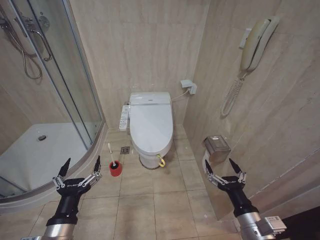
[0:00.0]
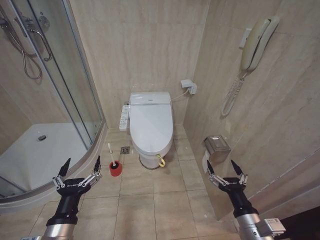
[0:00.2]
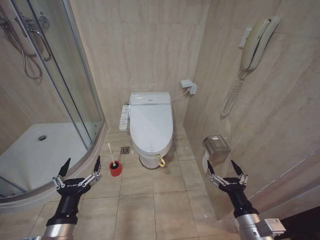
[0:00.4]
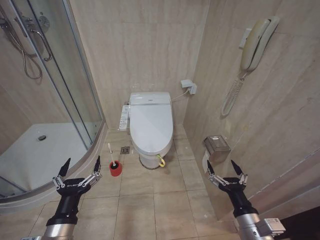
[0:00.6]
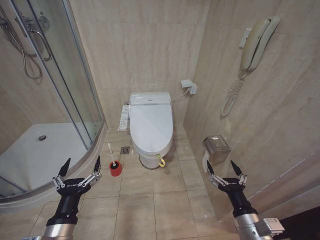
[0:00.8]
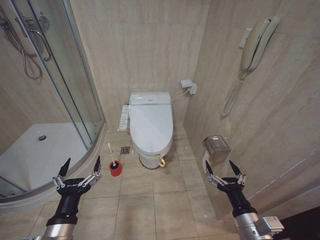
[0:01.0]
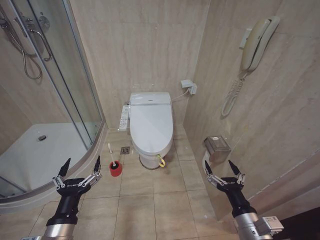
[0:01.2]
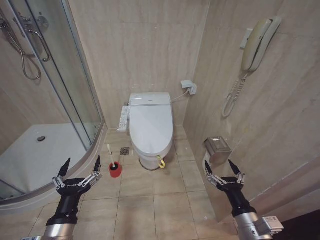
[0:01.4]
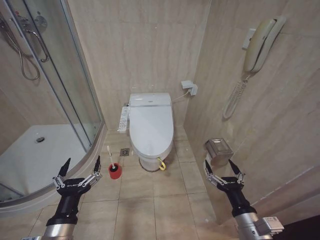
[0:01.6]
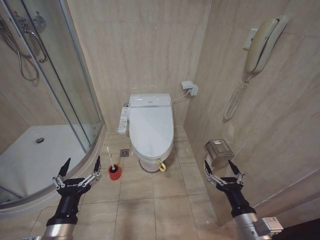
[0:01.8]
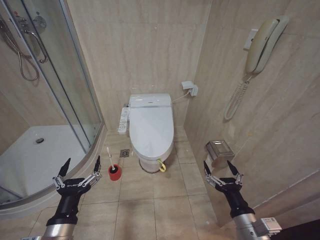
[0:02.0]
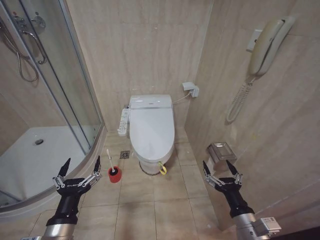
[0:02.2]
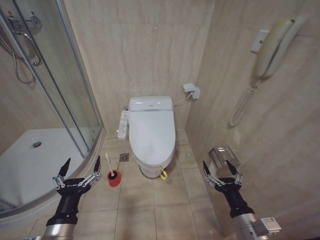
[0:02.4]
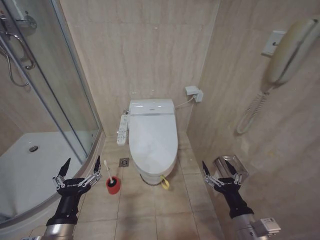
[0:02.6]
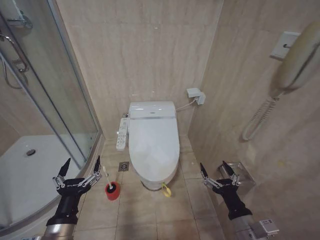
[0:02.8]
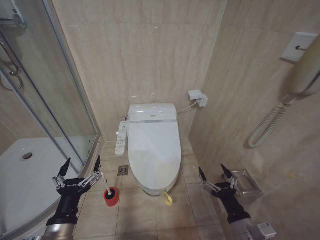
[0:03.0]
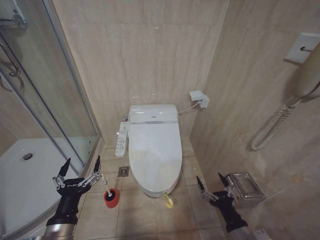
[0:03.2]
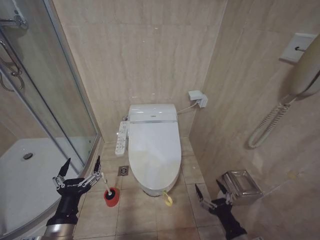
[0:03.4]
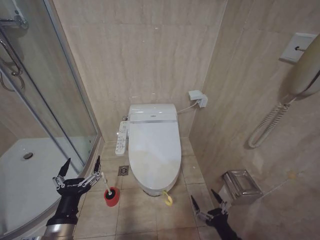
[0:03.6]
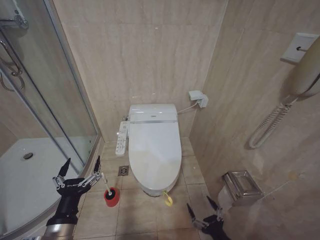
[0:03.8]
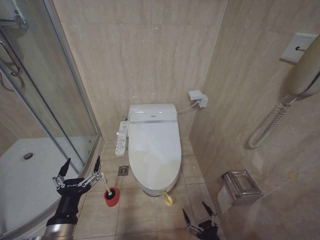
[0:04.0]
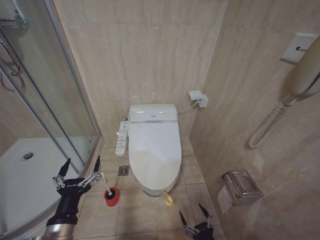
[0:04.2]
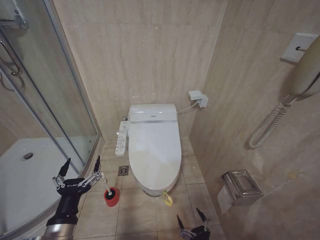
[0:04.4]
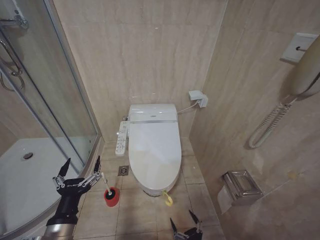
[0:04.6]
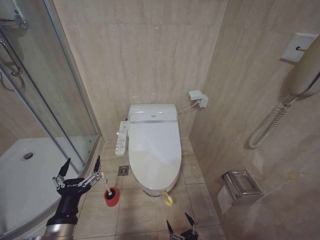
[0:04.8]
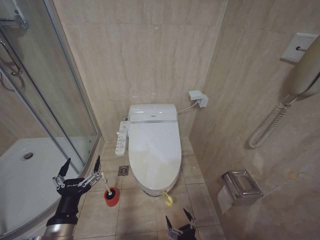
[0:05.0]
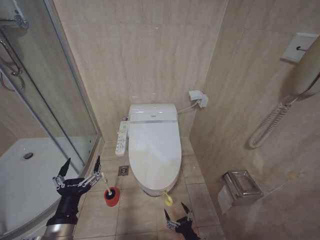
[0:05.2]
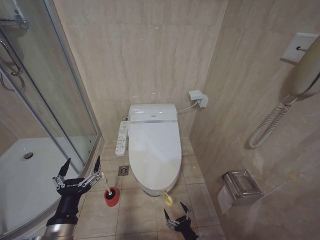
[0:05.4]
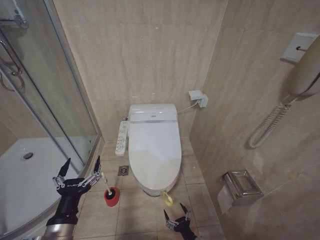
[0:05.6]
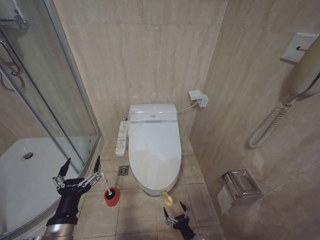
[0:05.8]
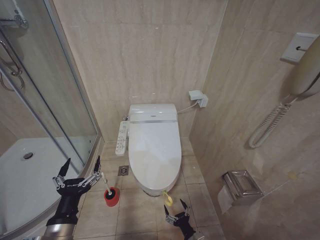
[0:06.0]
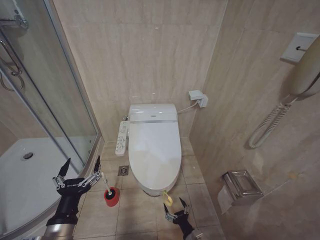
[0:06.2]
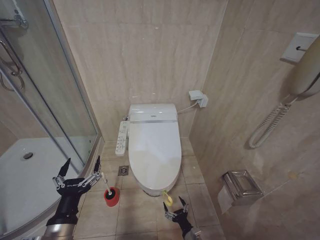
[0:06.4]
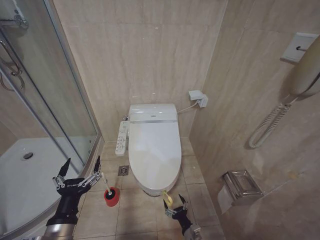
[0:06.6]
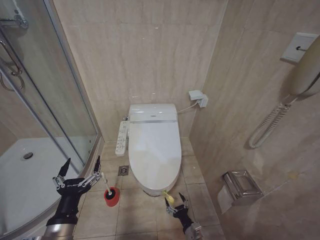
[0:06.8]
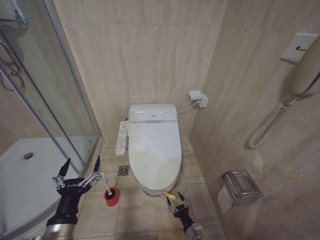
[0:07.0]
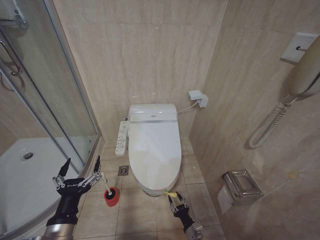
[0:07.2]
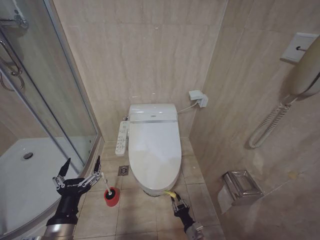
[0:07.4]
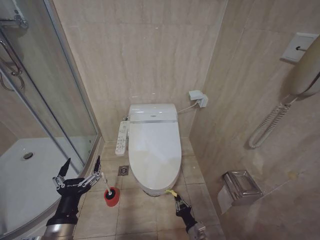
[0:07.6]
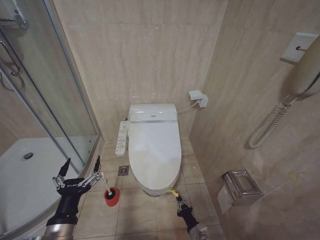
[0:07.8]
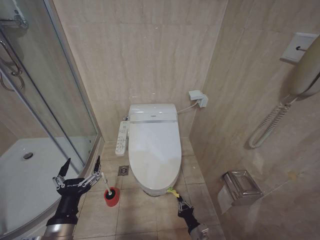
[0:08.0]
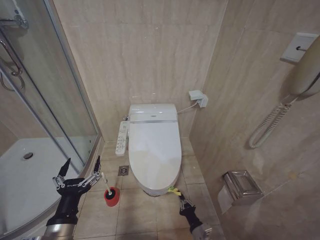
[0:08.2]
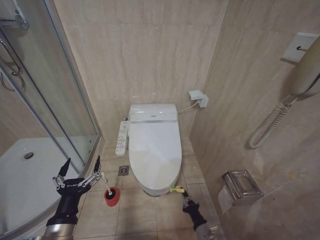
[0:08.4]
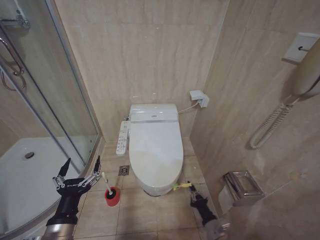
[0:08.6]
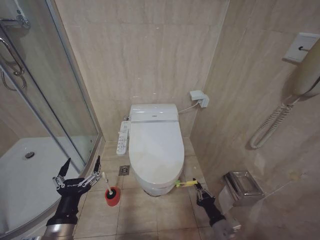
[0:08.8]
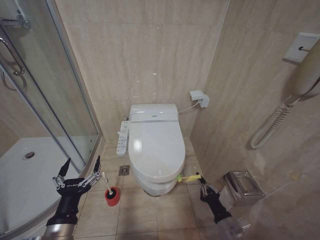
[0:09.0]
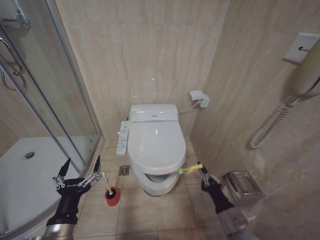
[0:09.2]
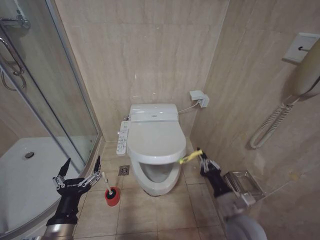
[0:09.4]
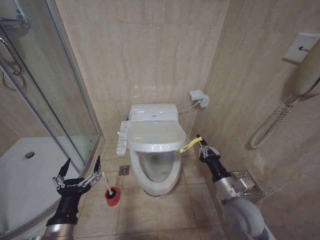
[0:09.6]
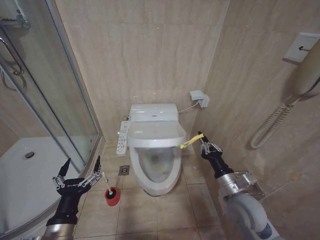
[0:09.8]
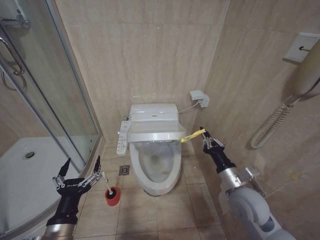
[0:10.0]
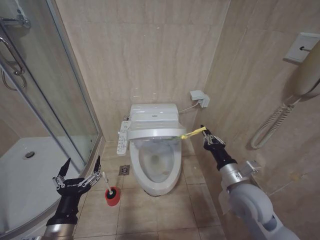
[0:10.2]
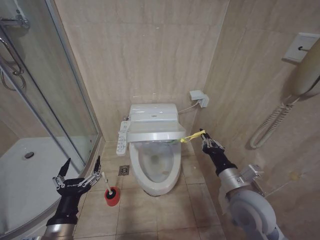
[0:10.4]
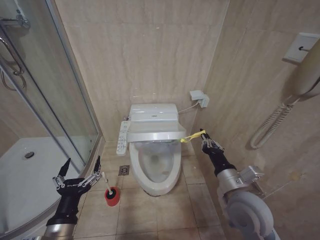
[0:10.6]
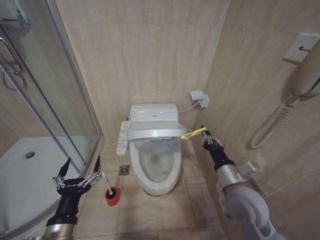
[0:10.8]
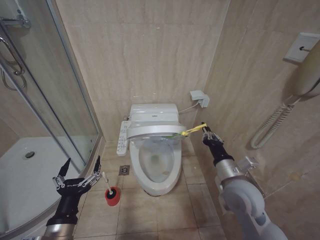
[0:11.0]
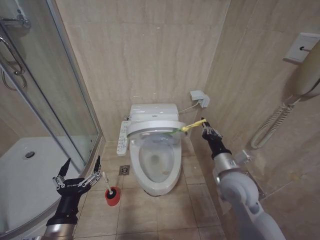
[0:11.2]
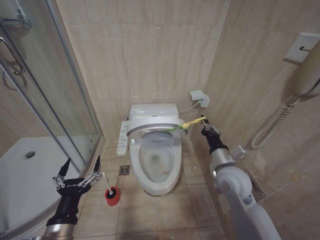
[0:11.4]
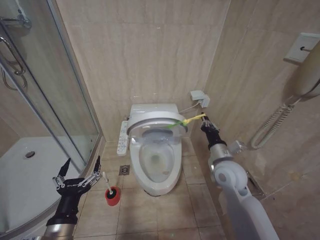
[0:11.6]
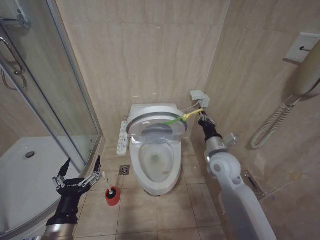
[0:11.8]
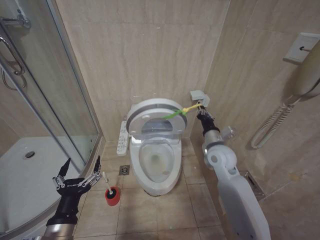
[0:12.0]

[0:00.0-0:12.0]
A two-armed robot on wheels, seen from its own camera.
Task of the whole recording: Open the toilet lid, clean the toilet bowl with a toilet brush, close the toilet lid, and flush.
0:03.0 to 0:04.4: The right gripper goes approximately 15 cm downward and backward.
0:04.4 to 0:06.0: The right gripper heads downward and forward, covering roughly 15 cm.
0:06.0 to 0:07.6: The right gripper closes its fingers.
0:07.6 to 0:09.0: The right gripper travels upward and to the right by approximately 15 cm.
0:09.0 to 0:10.4: The right gripper heads upward, covering approximately 20 cm.
0:10.4 to 0:12.0: The right gripper heads forward, covering about 15 cm.

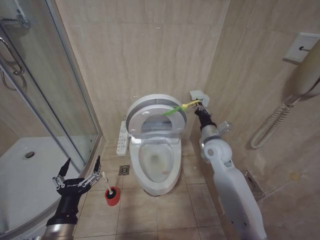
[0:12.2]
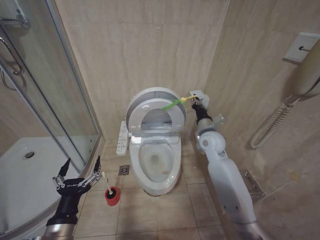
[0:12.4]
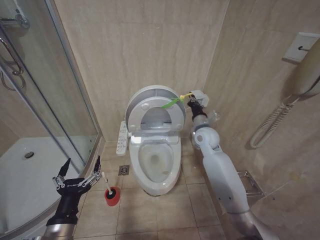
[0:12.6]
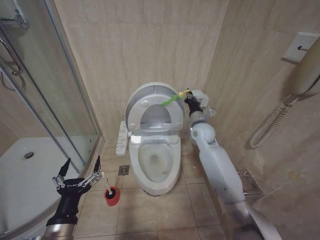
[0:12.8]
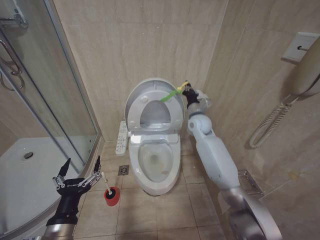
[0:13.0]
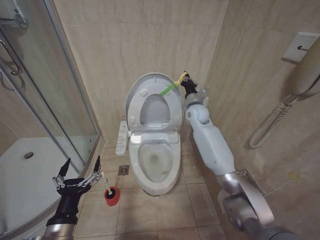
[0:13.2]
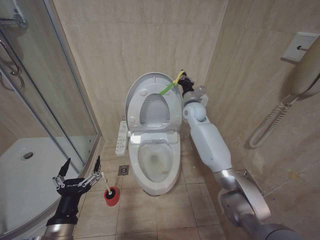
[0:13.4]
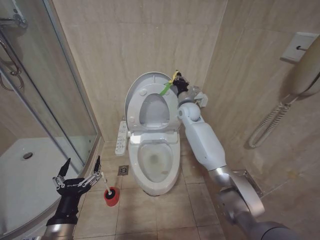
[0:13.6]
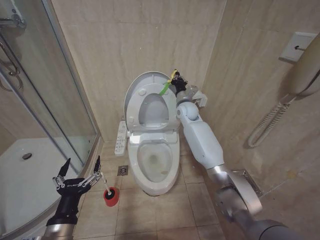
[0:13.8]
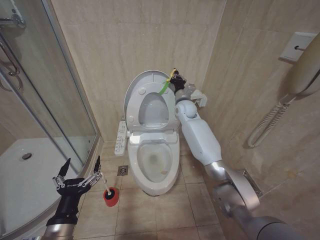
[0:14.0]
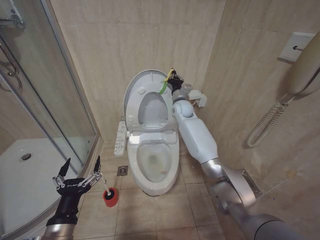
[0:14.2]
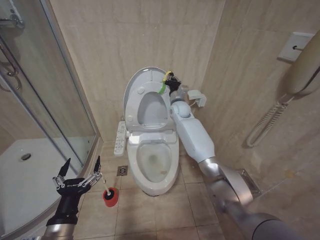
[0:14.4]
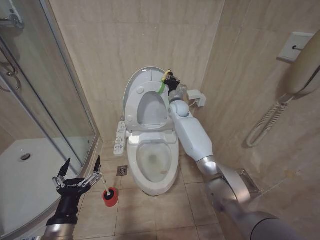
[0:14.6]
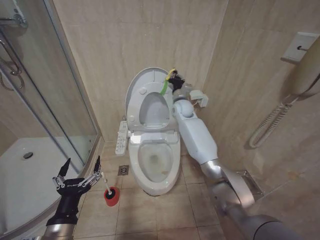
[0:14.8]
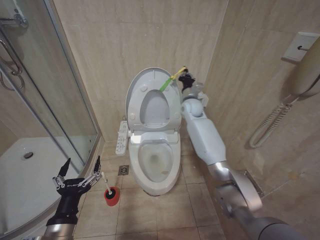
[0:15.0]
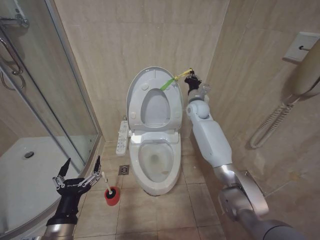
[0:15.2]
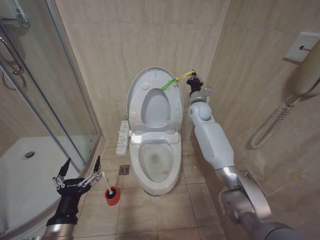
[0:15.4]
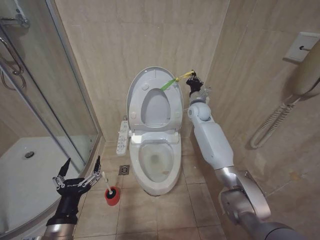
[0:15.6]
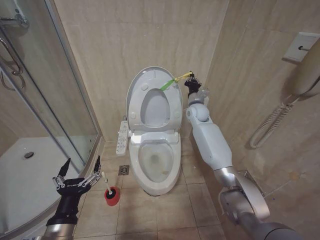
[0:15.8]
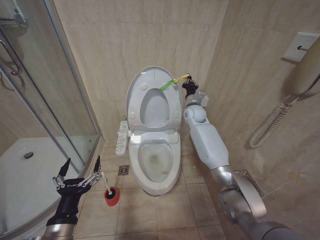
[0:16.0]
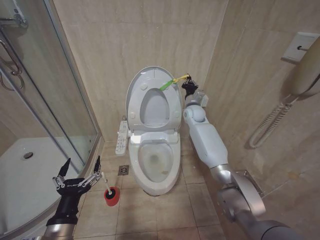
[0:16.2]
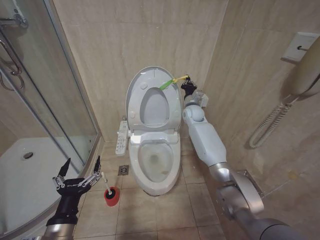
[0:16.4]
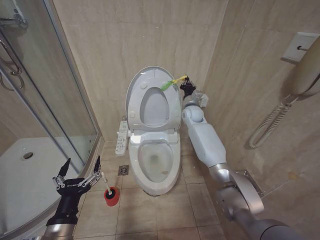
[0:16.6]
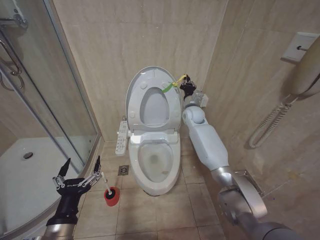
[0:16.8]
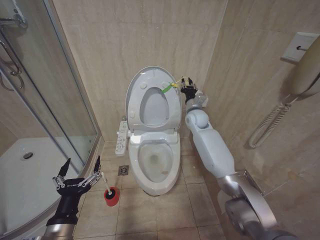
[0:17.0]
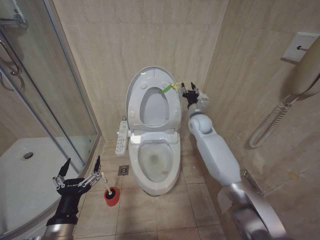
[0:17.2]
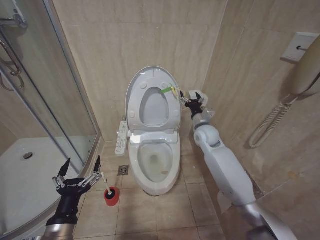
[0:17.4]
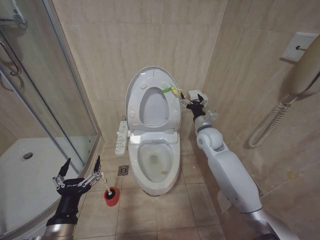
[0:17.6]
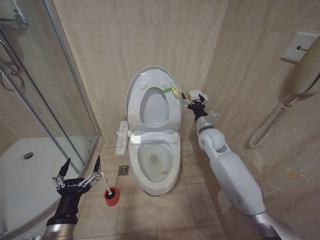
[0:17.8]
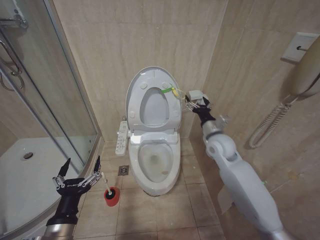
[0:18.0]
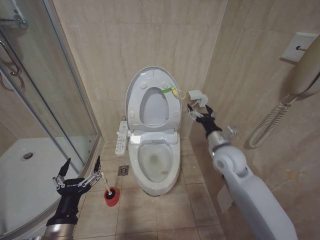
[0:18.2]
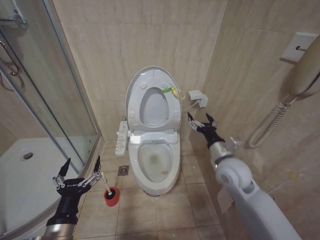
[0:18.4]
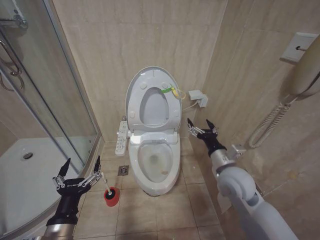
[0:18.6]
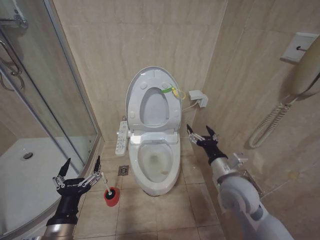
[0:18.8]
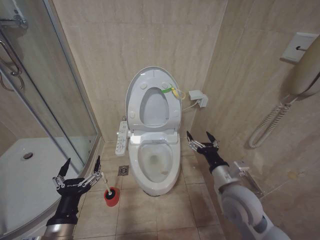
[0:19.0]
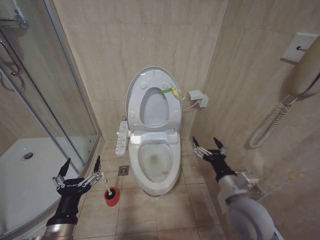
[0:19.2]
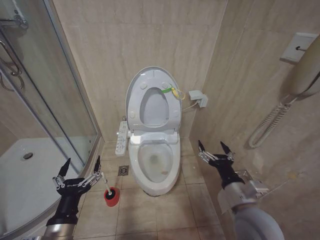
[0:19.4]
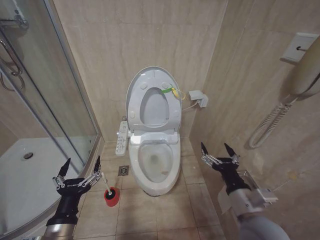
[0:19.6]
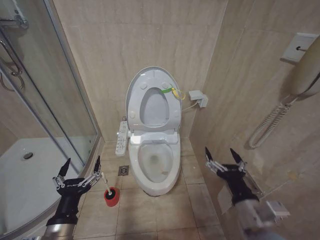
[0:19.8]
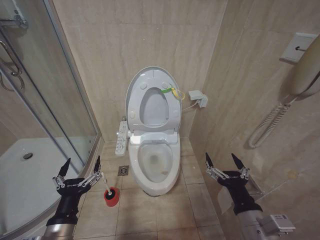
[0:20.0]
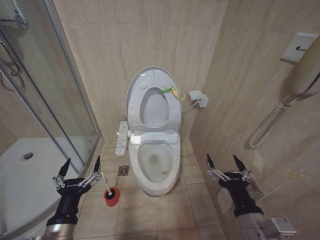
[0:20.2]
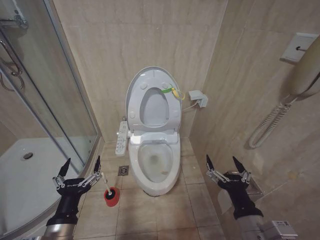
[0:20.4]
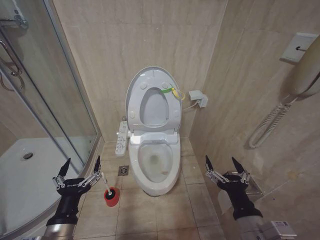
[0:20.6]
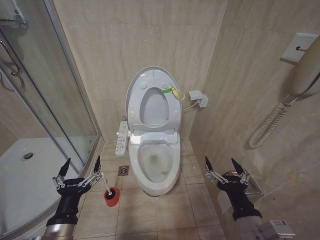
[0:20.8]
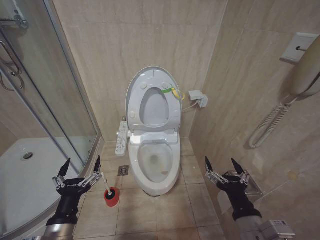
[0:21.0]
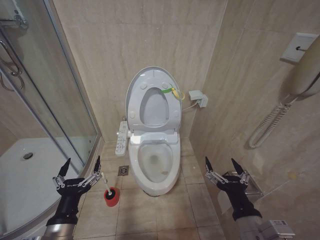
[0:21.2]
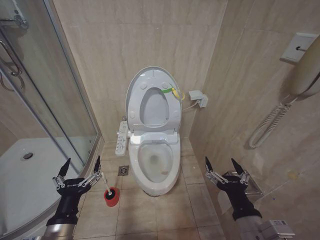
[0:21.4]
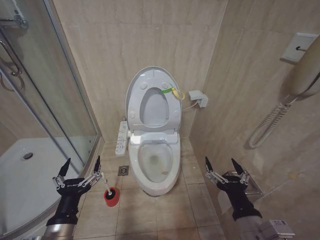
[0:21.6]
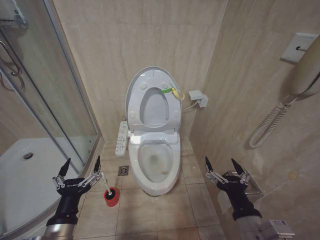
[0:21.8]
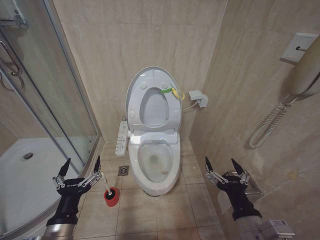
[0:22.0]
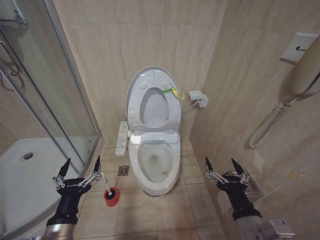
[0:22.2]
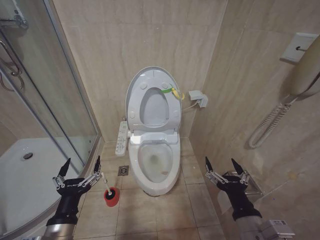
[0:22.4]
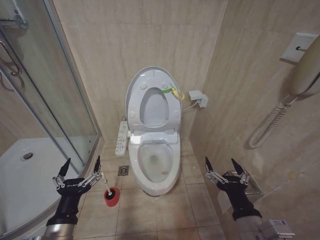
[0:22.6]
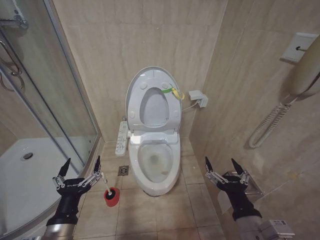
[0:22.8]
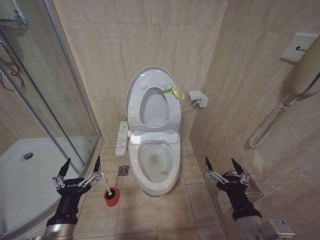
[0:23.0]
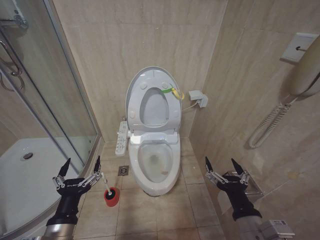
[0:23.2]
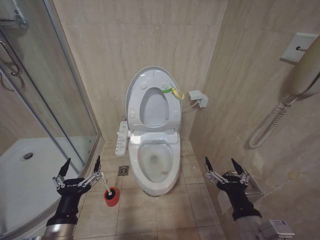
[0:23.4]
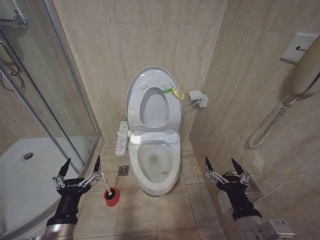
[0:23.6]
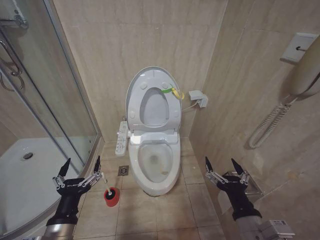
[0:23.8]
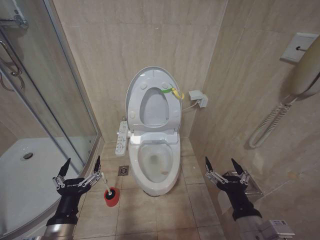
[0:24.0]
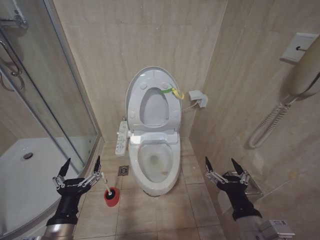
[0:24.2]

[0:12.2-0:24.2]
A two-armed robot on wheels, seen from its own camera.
Task of the whole recording: Open the toilet lid, clean the toilet bowl with a toilet brush, close the toilet lid, and flush.
0:12.2 to 0:13.8: The right gripper goes about 20 cm forward, to the left and upward.
0:13.8 to 0:16.6: The grippers make only small movements.
0:16.6 to 0:18.2: The right gripper is displaced backward by roughly 20 cm, and opens up.
0:18.2 to 0:19.8: The right gripper goes roughly 25 cm backward.
0:19.8 to 0:21.2: The grippers make only small movements.
0:21.2 to 0:24.2: The two grippers keep their place.
